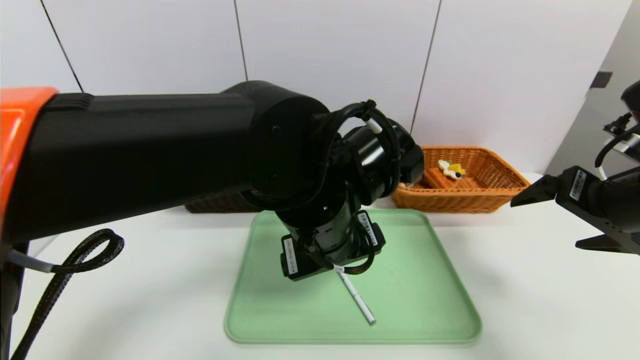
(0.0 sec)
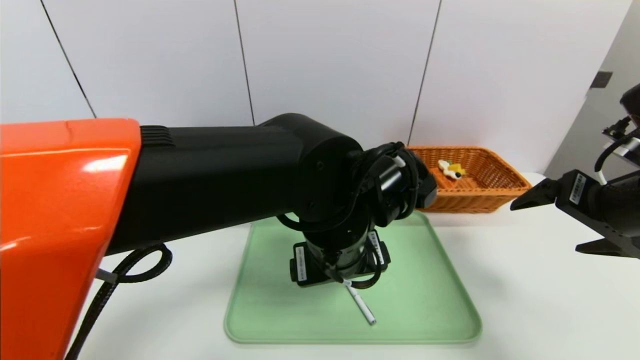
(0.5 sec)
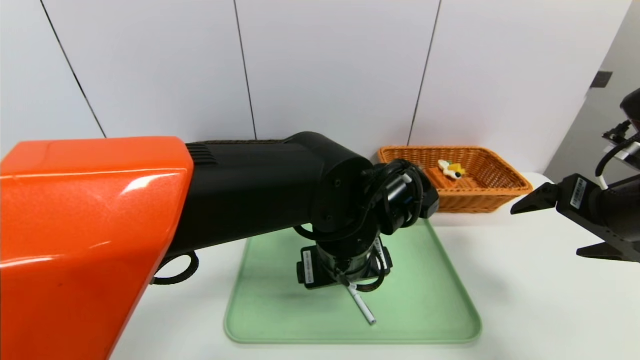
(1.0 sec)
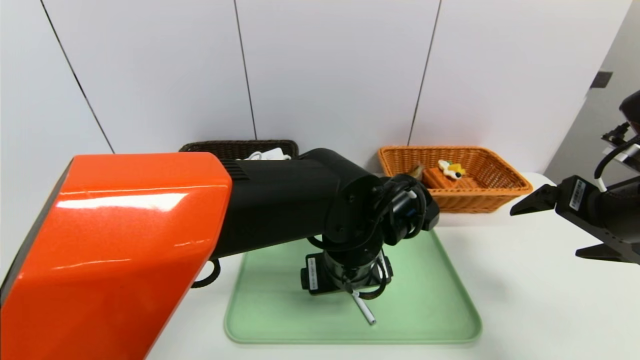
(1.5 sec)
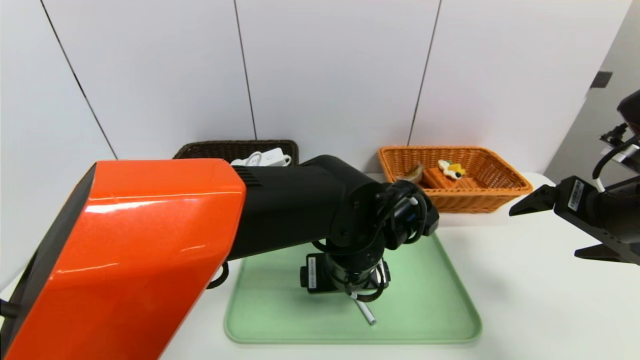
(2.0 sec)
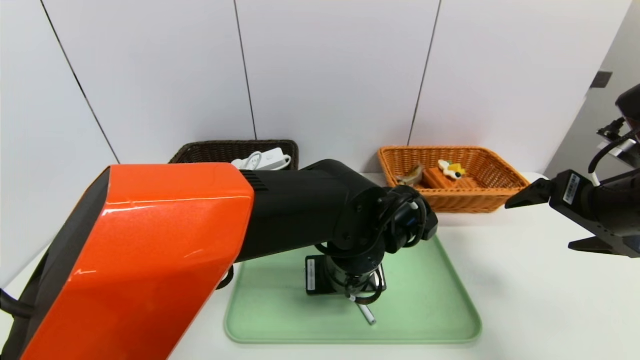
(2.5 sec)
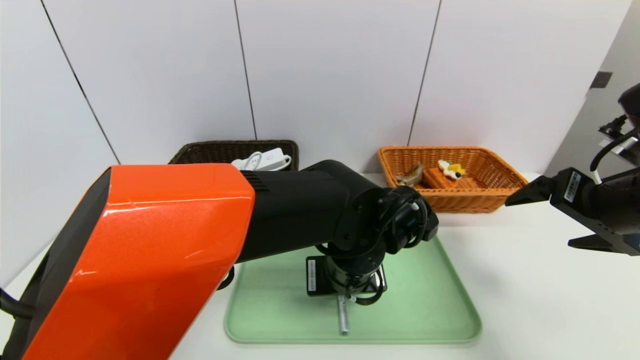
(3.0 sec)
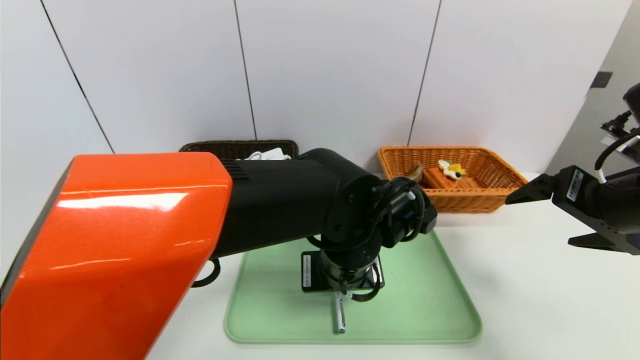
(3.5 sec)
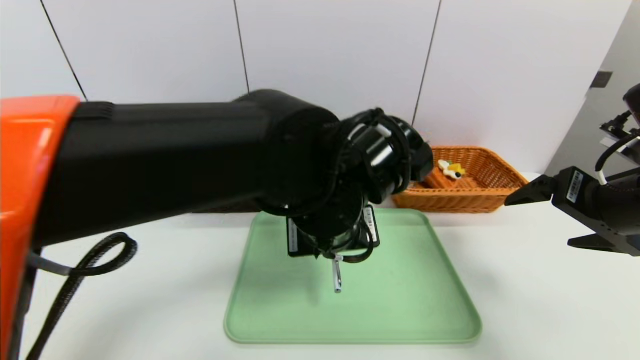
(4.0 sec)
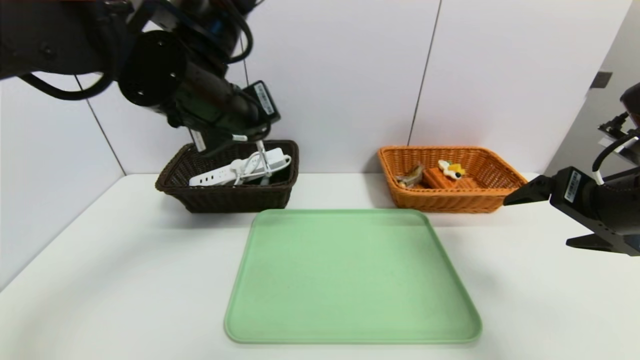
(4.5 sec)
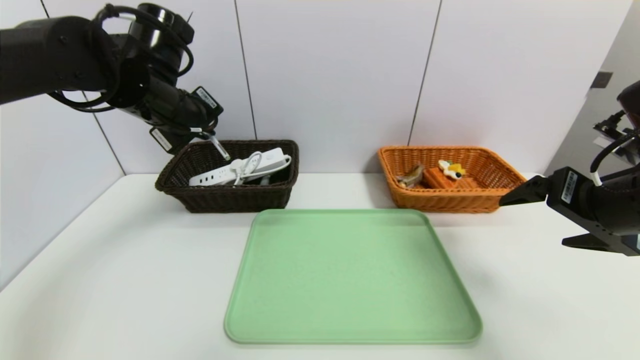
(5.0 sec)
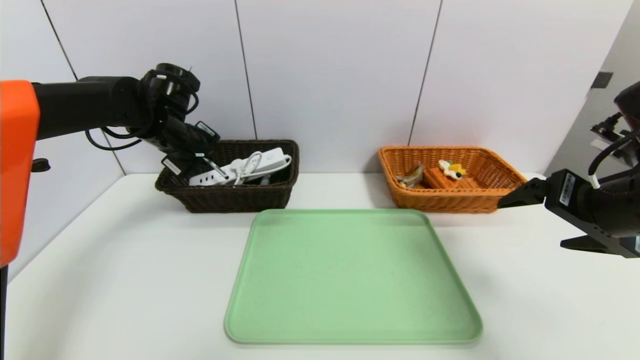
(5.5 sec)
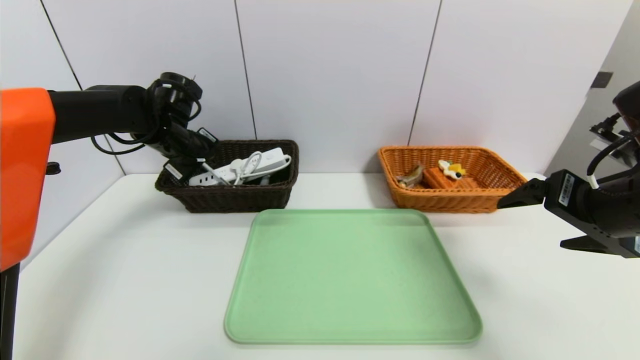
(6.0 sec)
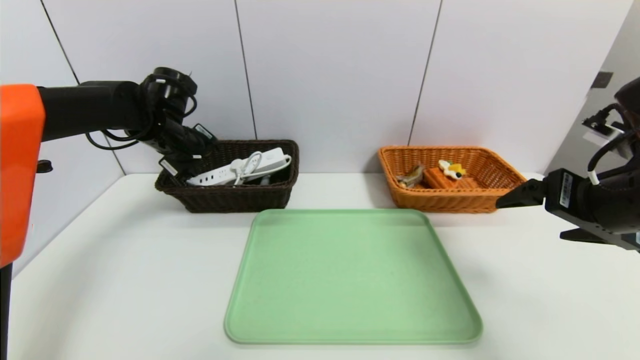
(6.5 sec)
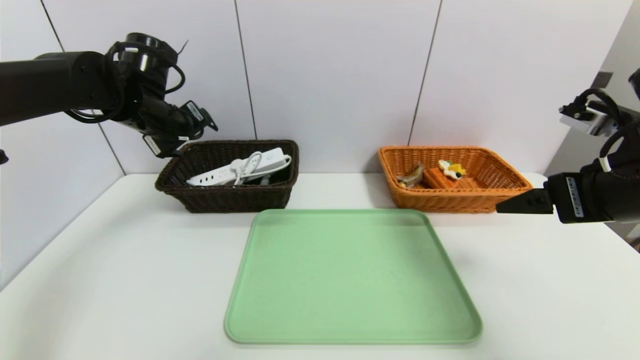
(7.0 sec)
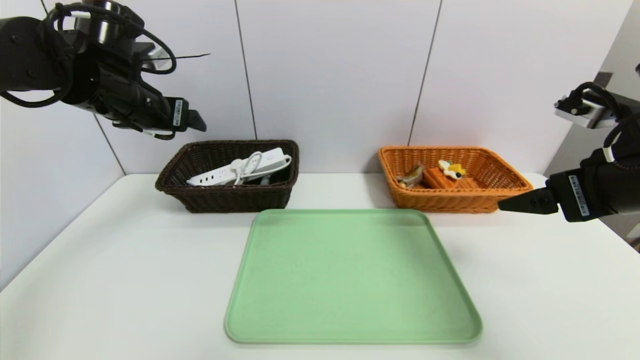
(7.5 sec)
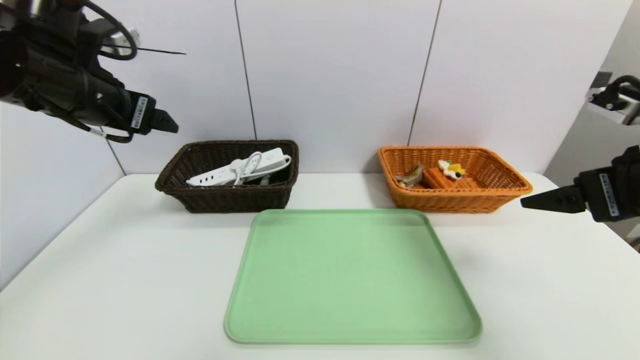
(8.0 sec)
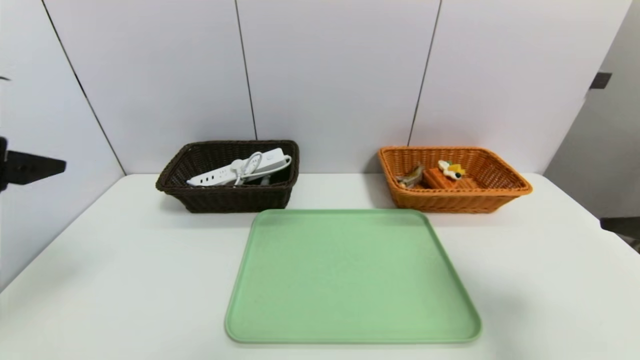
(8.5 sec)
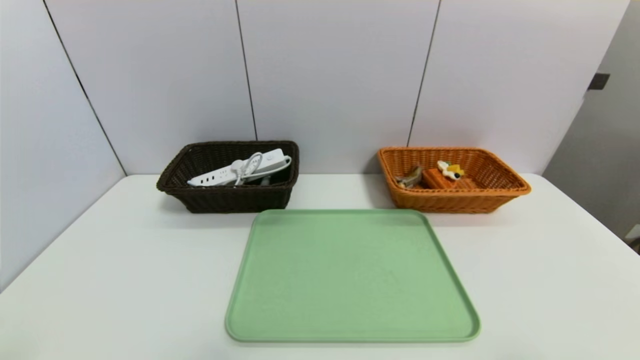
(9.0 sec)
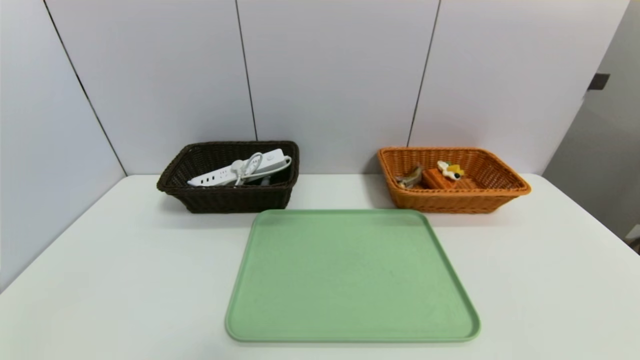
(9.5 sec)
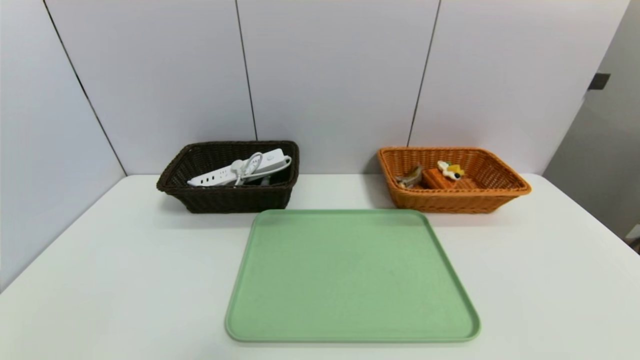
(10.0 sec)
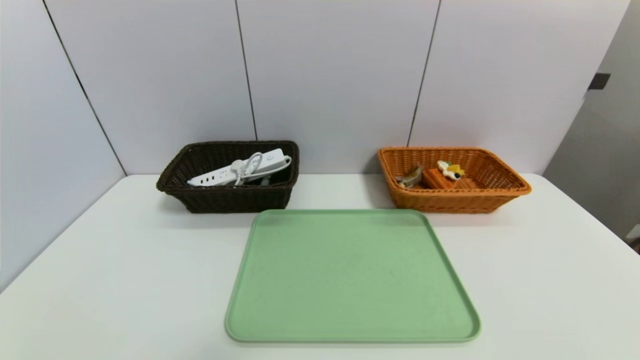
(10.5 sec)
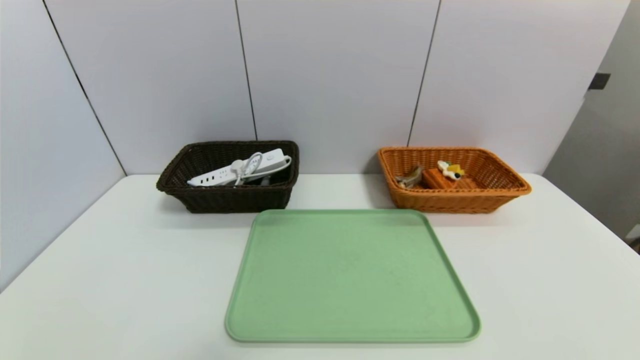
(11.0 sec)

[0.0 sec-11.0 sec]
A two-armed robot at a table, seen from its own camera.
Task of the whole recording: place the food in the right basket with the right gripper, and place the non food items in the left basket with the left gripper.
Step, 0.0 sec to 6.0 sec: Grasp the ballpoint pen and put it in the left basket.
0.0 sec to 2.0 sec: The left gripper is displaced downward by some 5 cm.
2.0 sec to 3.5 sec: The left gripper closes its fingers.
3.5 sec to 5.5 sec: The left gripper shifts about 35 cm to the left and forward.
5.5 sec to 7.5 sec: The left gripper goes about 10 cm upward and backward, and opens.
7.5 sec to 9.0 sec: The right gripper travels backward by approximately 20 cm. Meanwhile the left gripper moves backward, some 35 cm.
